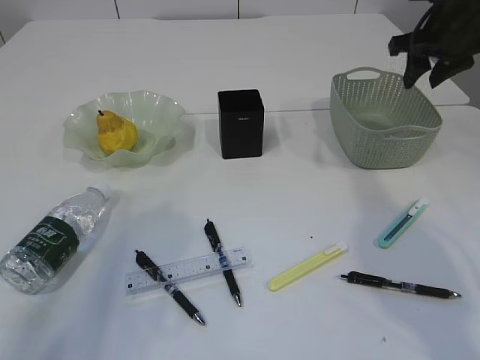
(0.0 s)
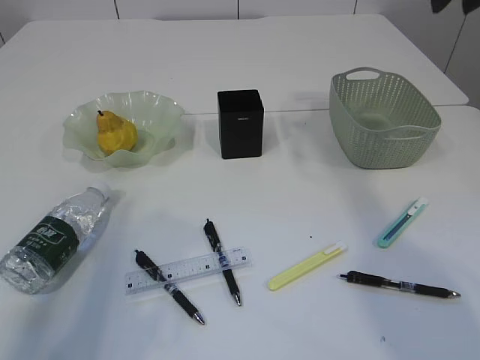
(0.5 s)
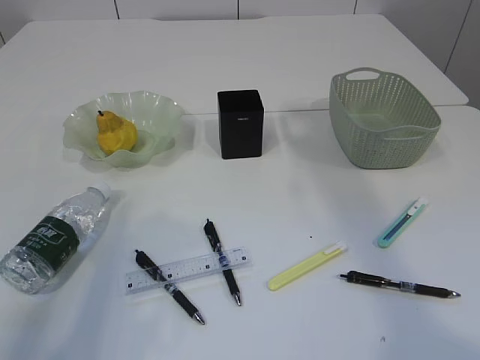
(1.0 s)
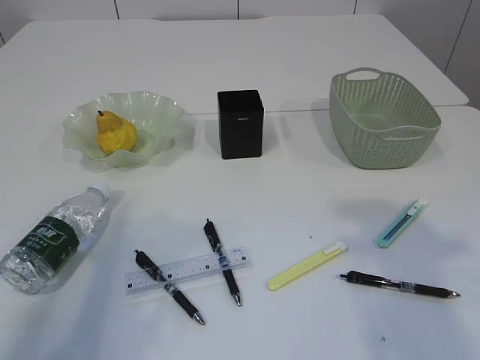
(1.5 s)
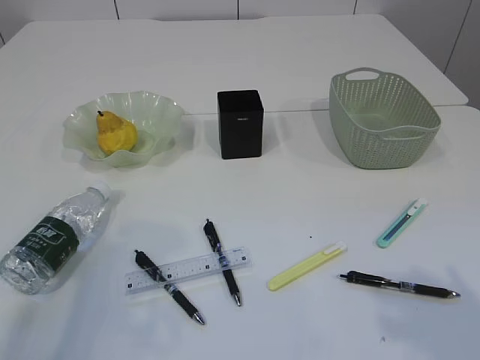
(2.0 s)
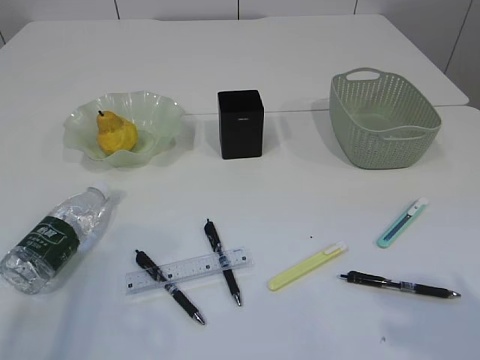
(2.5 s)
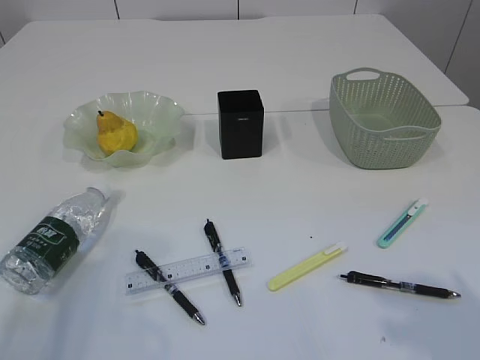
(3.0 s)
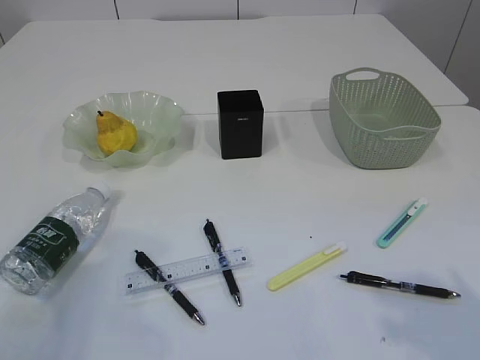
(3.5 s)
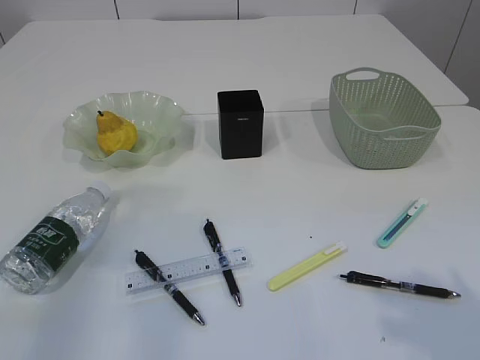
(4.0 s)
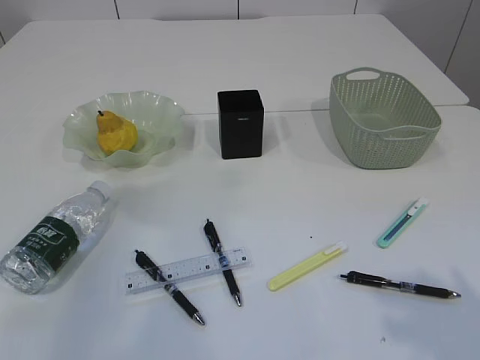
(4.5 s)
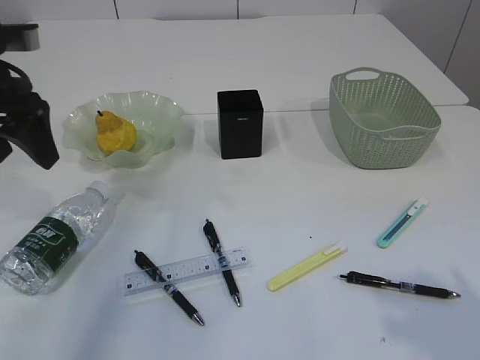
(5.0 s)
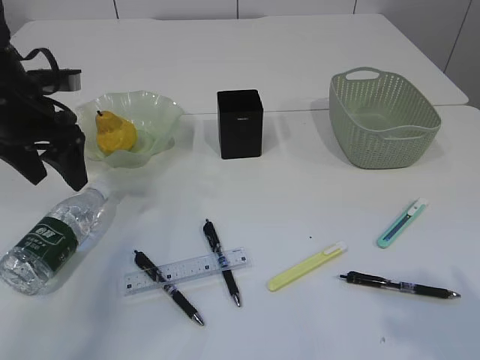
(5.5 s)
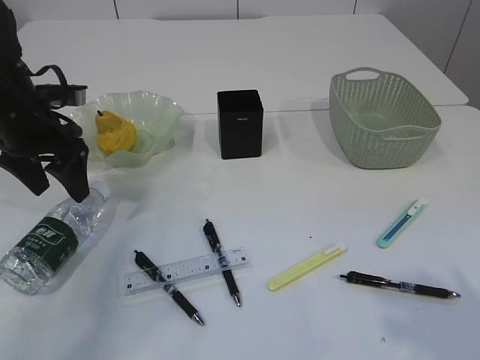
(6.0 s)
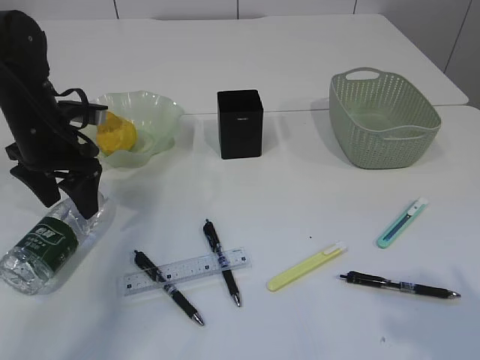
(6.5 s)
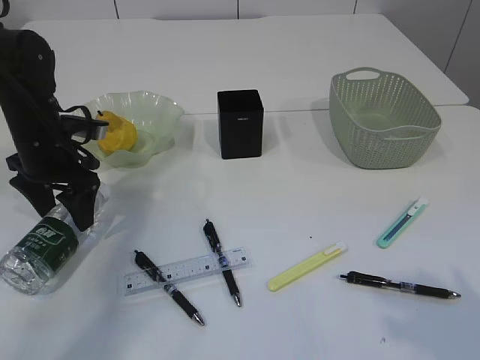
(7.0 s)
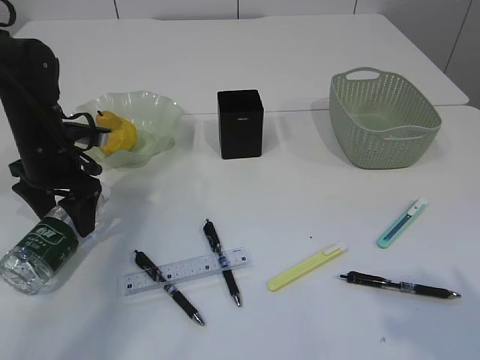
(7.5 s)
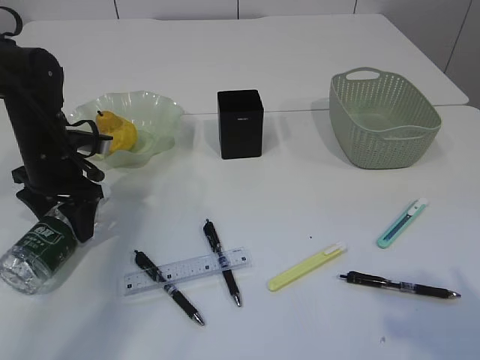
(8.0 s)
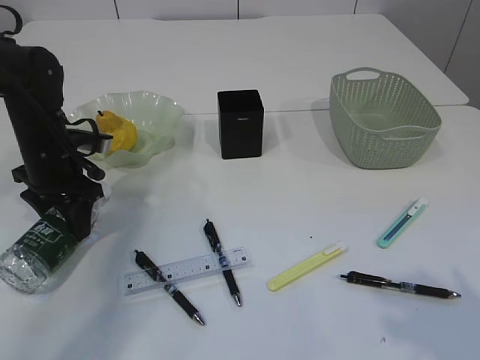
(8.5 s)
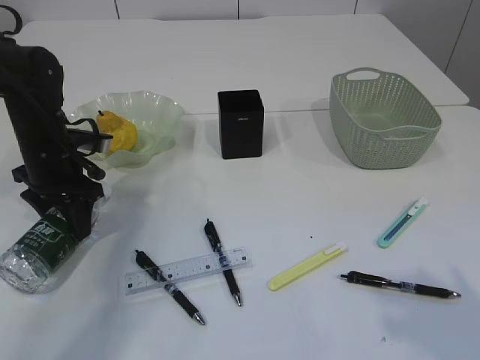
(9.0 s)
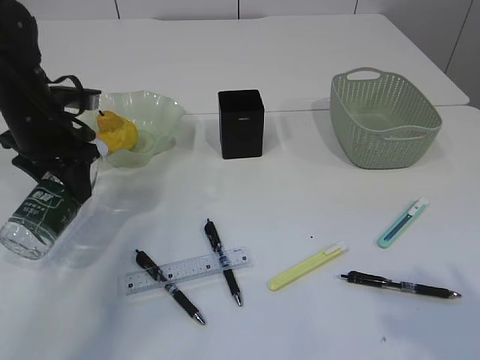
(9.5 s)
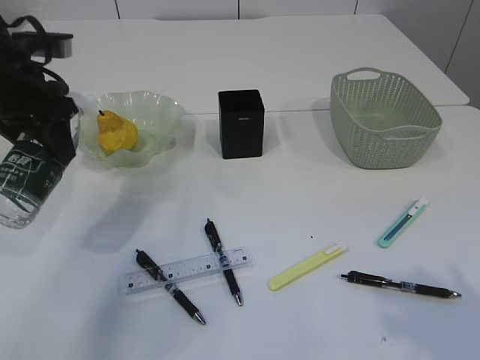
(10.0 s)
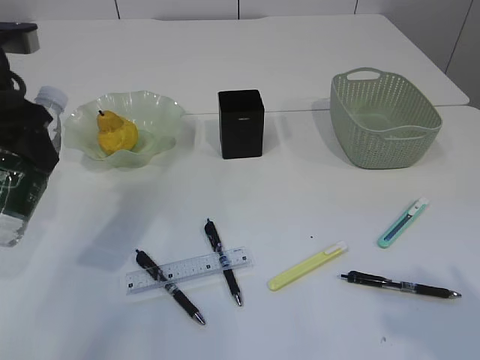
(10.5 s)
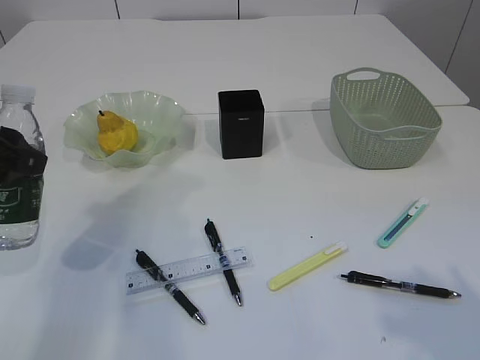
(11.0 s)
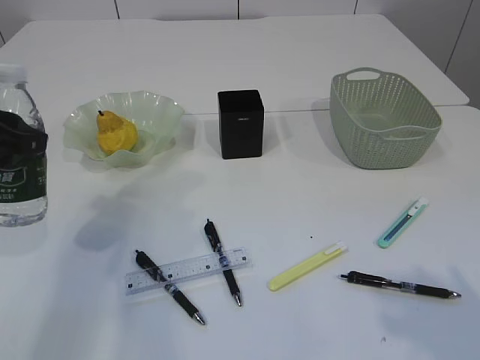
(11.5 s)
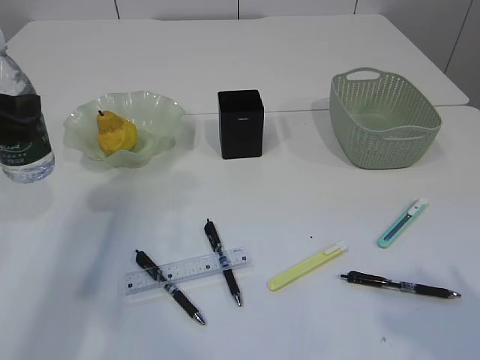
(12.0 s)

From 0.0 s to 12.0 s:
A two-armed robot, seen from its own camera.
Step, from 0.5 s to 9.0 s: Pick up the bottle with the left arm.
From 0.0 s to 2.0 s: The right gripper is displaced backward by about 40 cm.
From 4.0 s to 6.0 s: The left gripper moves forward and downward, about 20 cm.
From 6.0 s to 8.0 s: The left gripper heads downward, covering roughly 5 cm.
From 8.0 s to 10.0 s: The left gripper goes about 15 cm upward.
From 10.0 s to 12.0 s: The left gripper moves backward, some 10 cm.

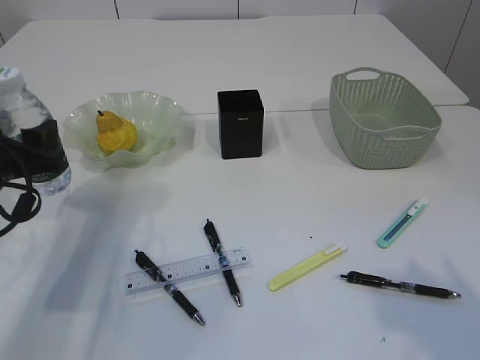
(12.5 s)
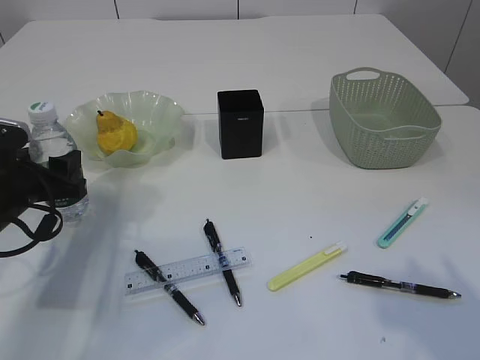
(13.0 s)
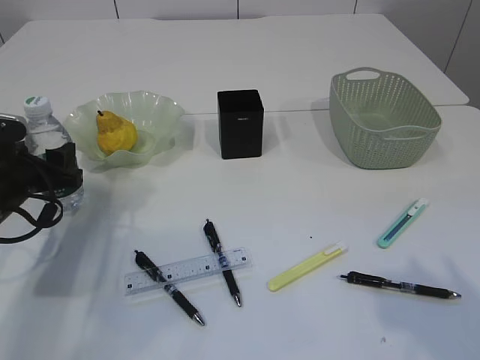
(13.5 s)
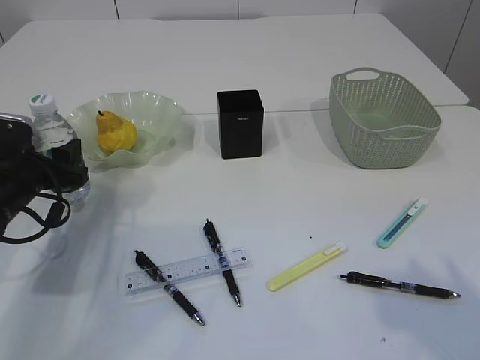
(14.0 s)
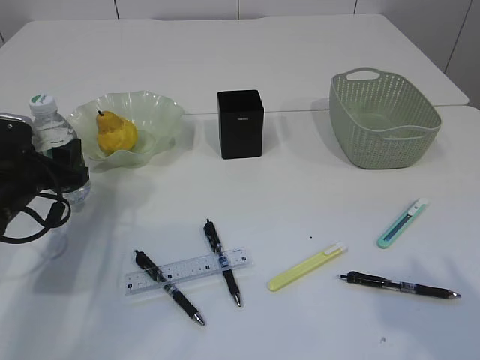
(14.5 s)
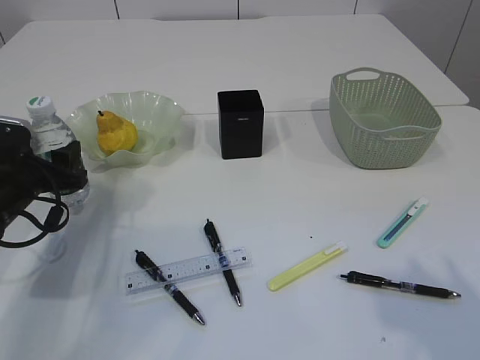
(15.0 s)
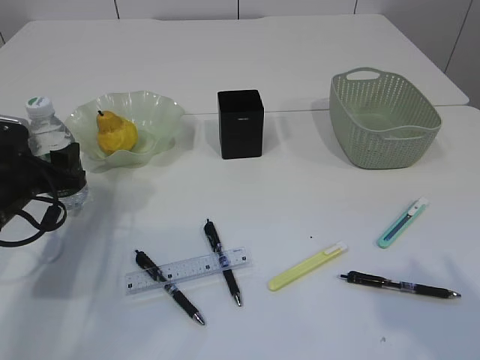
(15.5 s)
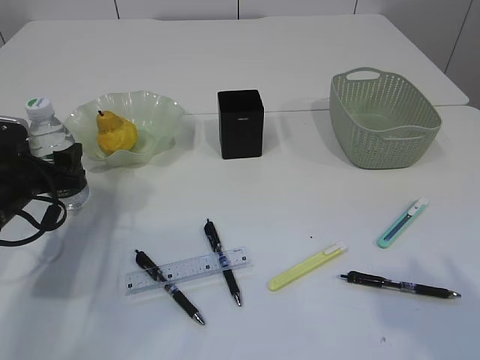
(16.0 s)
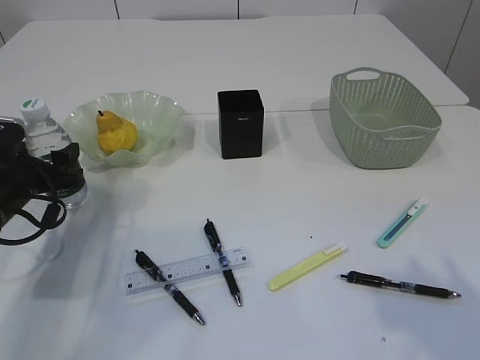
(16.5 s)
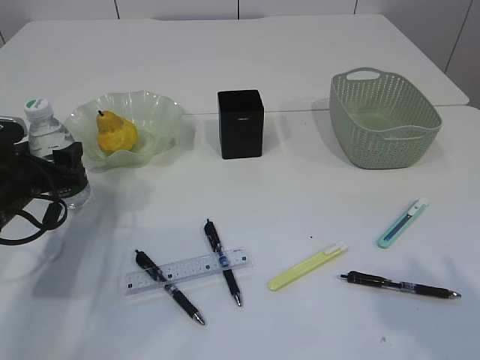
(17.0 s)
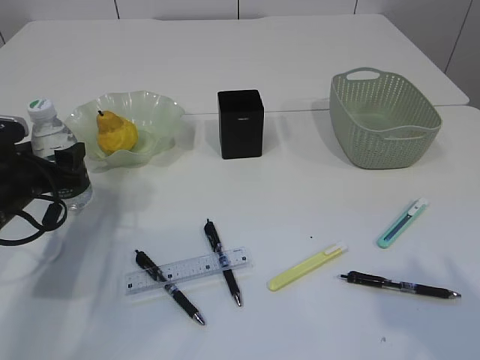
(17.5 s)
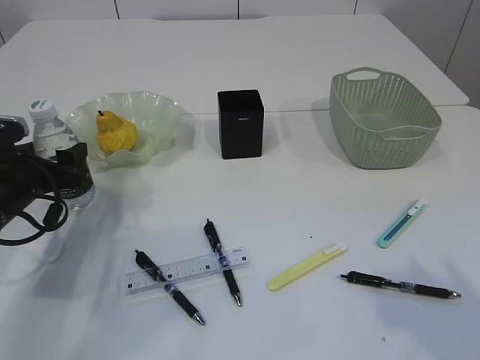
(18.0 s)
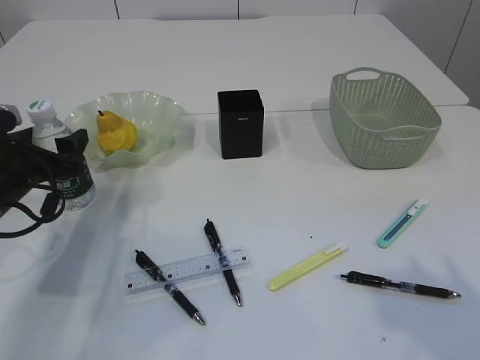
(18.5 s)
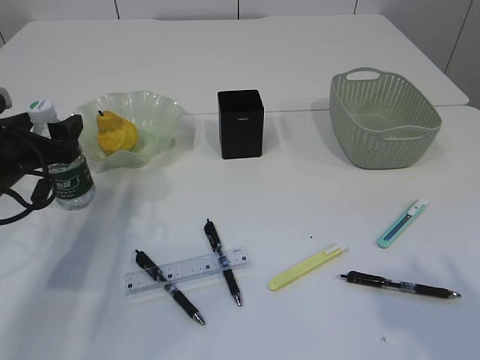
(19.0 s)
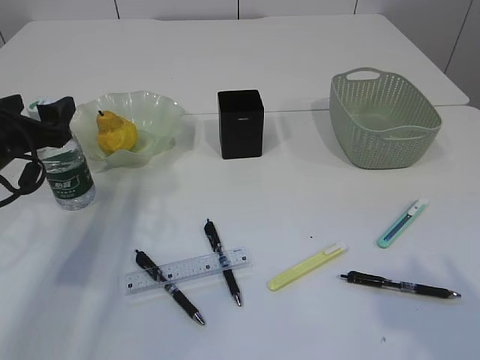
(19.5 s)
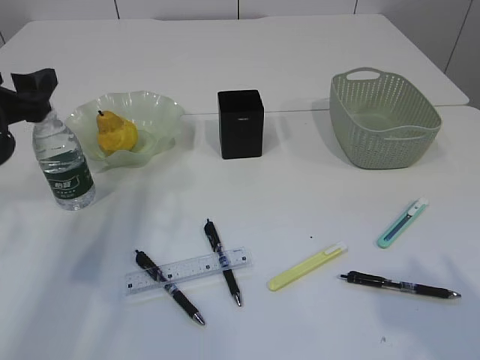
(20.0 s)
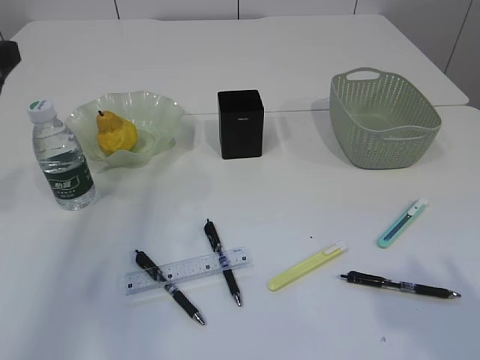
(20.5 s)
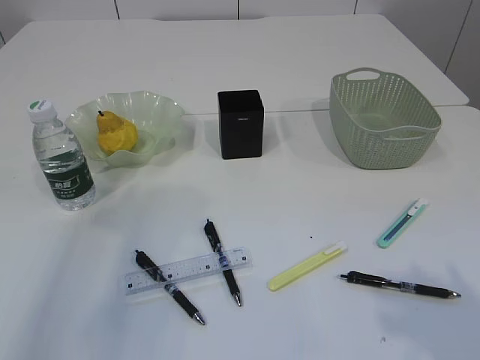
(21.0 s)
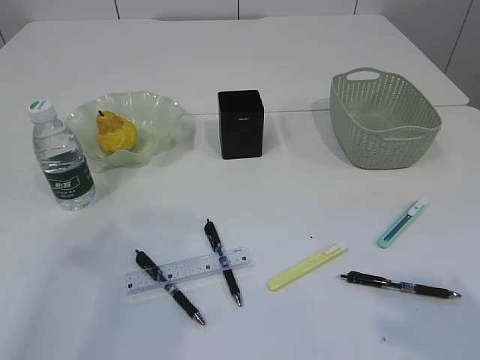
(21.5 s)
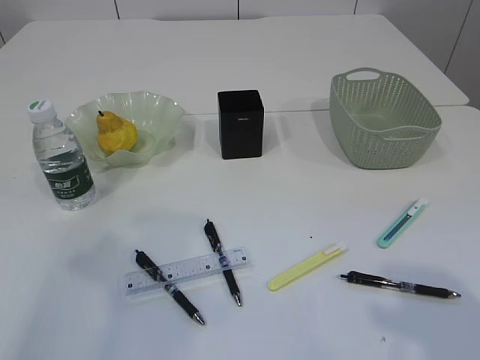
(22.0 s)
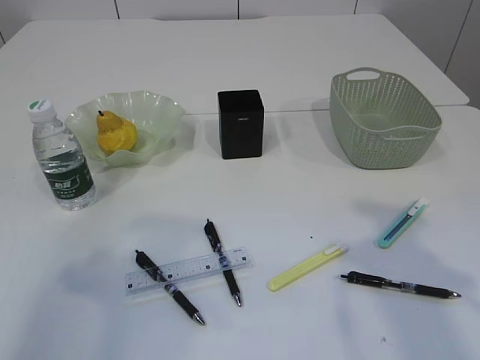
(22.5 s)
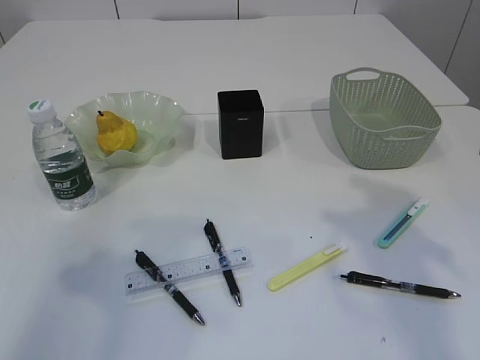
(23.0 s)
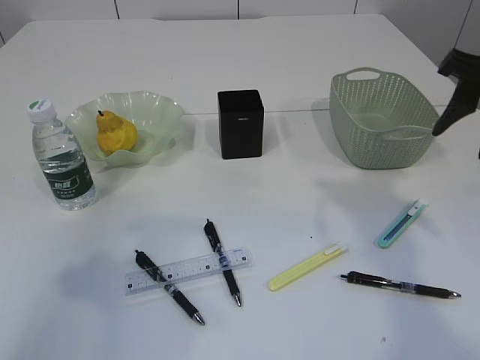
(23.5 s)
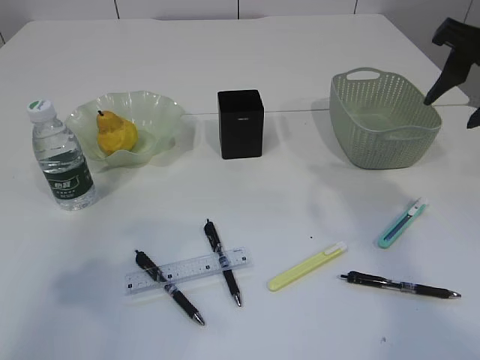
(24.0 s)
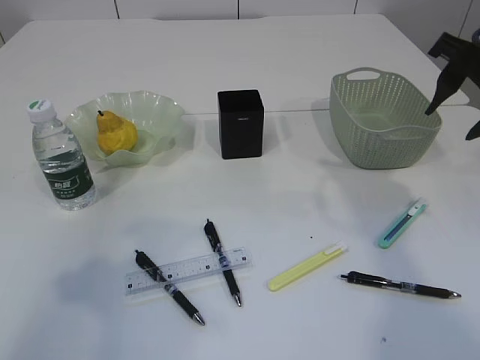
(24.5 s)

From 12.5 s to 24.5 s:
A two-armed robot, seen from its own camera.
Step, from 12.5 s to 19.5 s: Place the bottle.
From 12.5 s to 14.5 s: The left gripper shifts about 5 cm downward.
From 14.5 s to 16.5 s: The two grippers keep their place.
From 16.5 s to 18.5 s: The grippers stay close to where they were, moving slightly.
From 18.5 s to 20.5 s: The left gripper travels upward and backward by approximately 15 cm.
From 22.5 s to 24.5 s: The right gripper heads forward, covering some 15 cm.

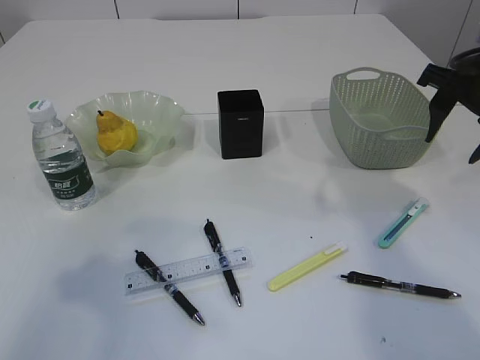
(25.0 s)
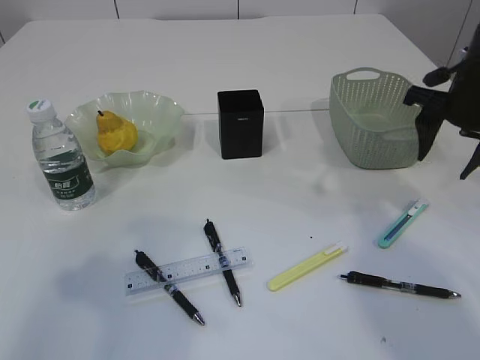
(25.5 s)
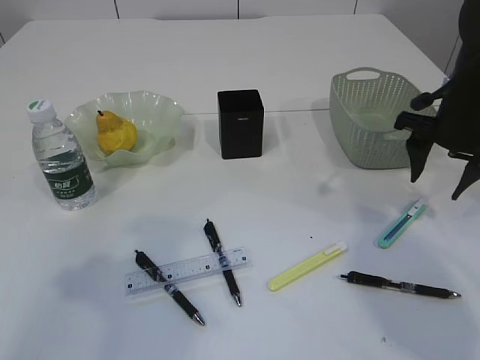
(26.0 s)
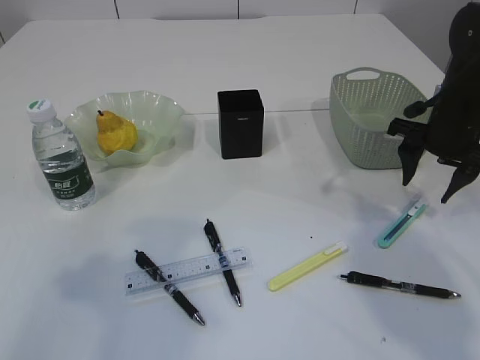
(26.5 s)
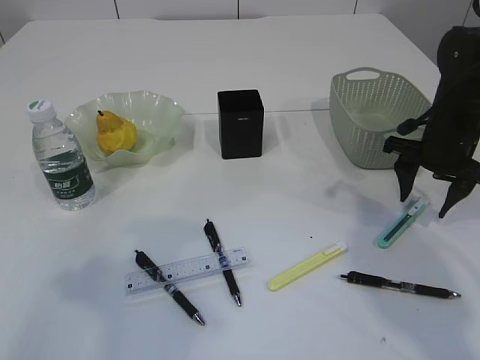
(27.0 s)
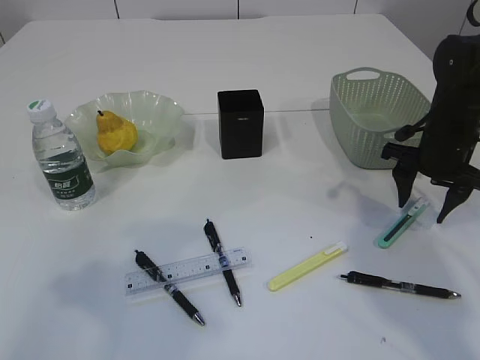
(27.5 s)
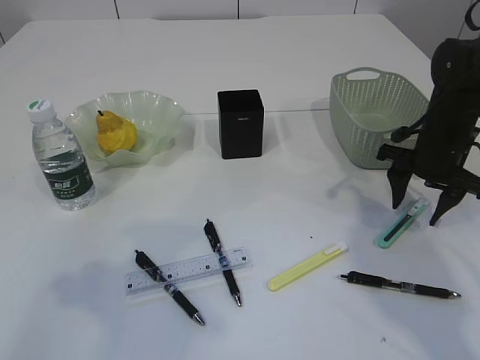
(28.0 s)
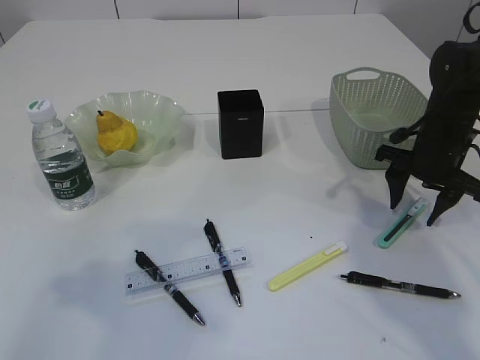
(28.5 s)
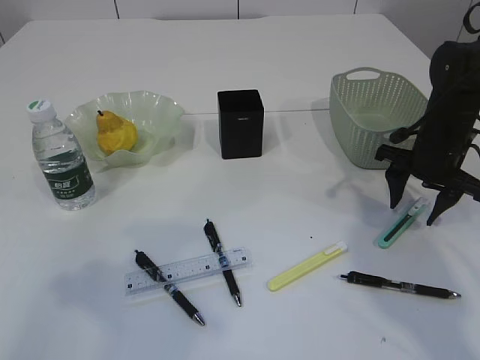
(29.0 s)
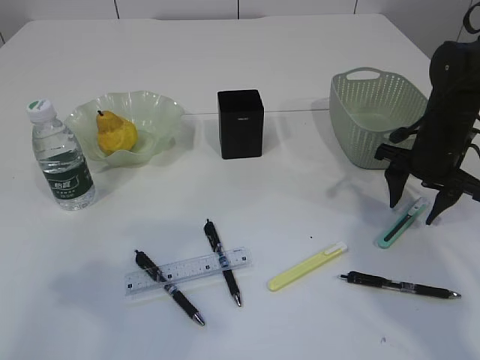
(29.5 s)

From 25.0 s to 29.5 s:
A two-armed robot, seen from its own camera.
From 25.0 s to 27.0 s: The right gripper is displaced downward and forward by roughly 10 cm.
From 27.0 s to 29.5 s: The grippers stay close to where they were, moving slightly.
